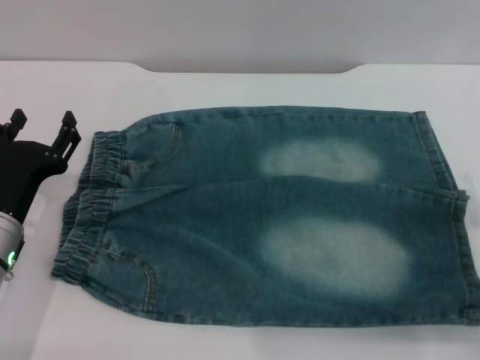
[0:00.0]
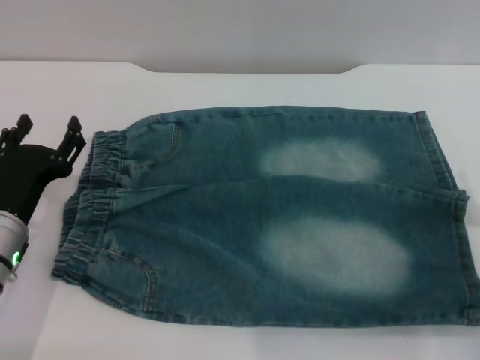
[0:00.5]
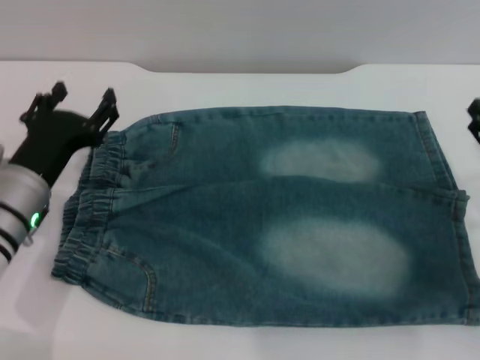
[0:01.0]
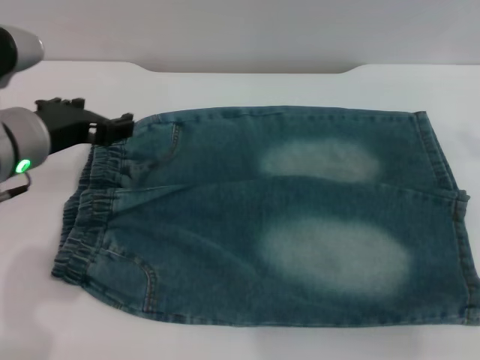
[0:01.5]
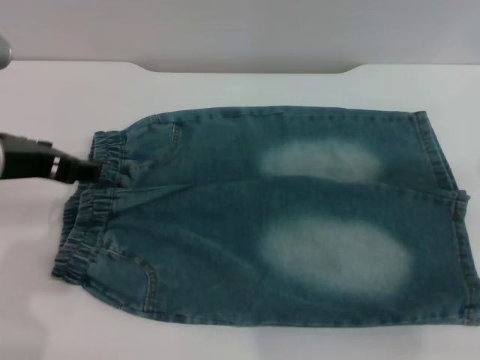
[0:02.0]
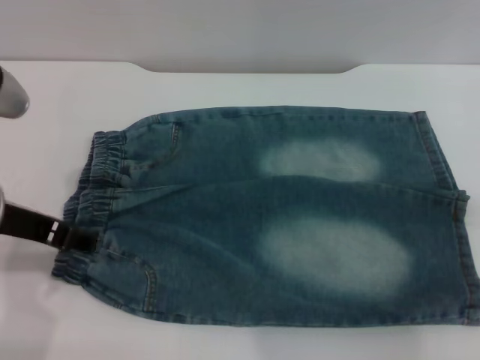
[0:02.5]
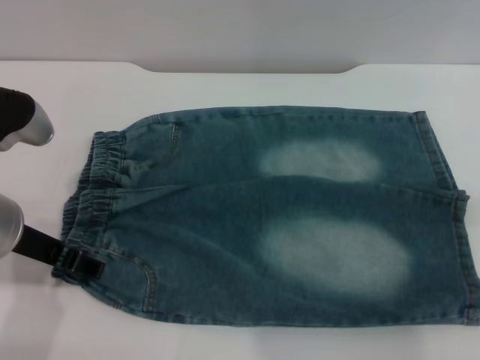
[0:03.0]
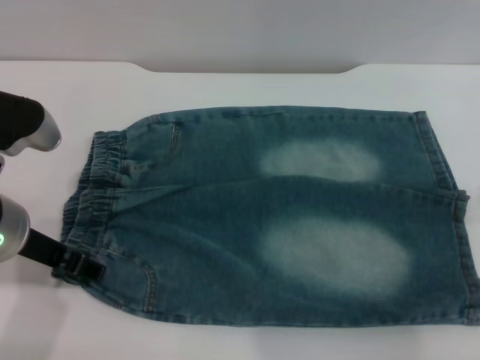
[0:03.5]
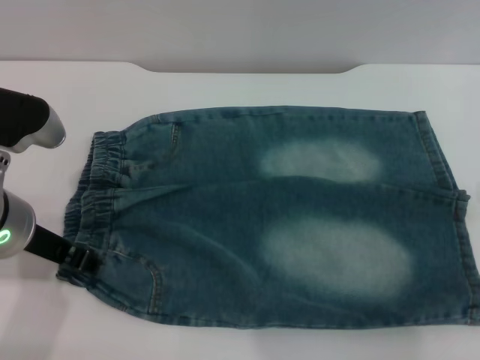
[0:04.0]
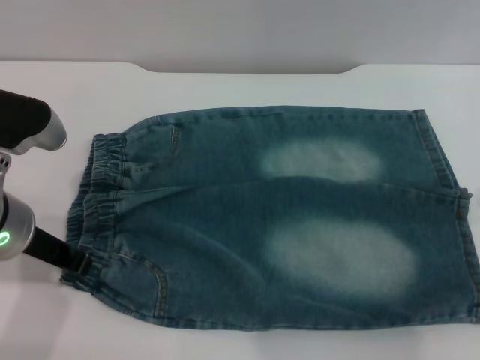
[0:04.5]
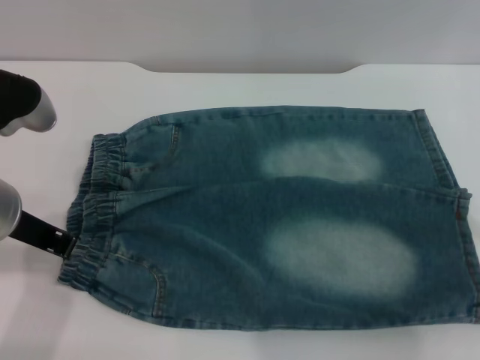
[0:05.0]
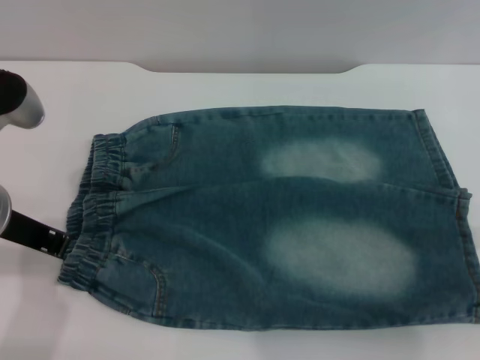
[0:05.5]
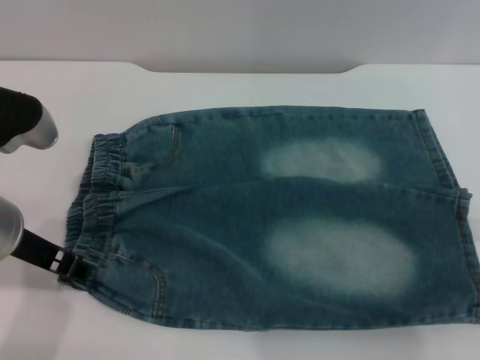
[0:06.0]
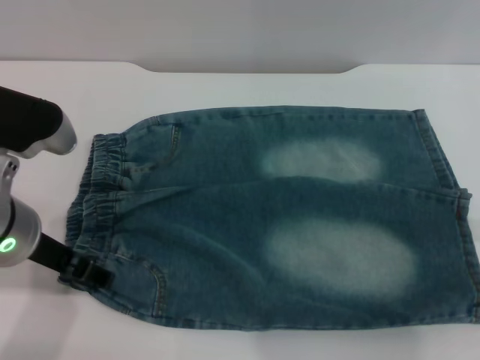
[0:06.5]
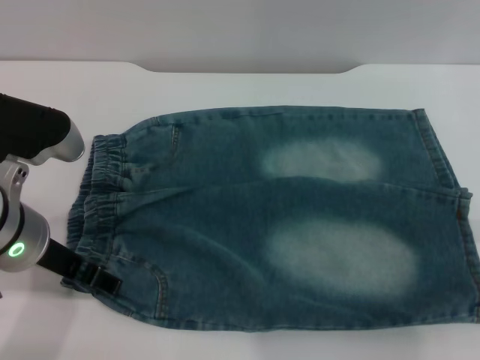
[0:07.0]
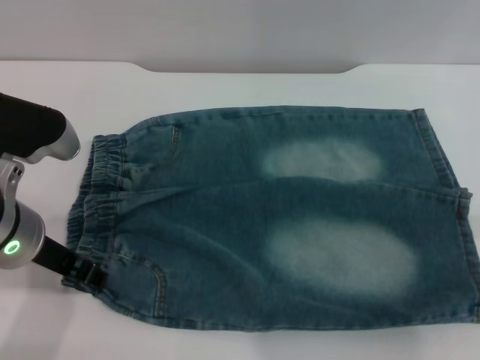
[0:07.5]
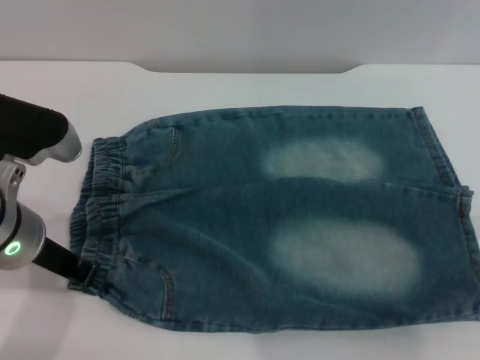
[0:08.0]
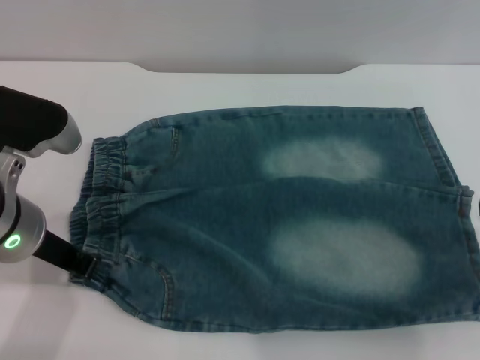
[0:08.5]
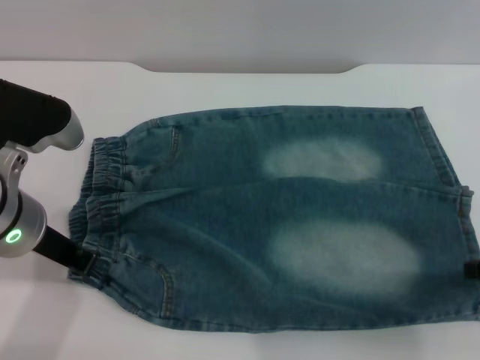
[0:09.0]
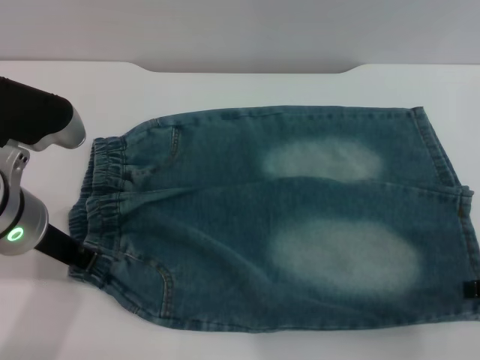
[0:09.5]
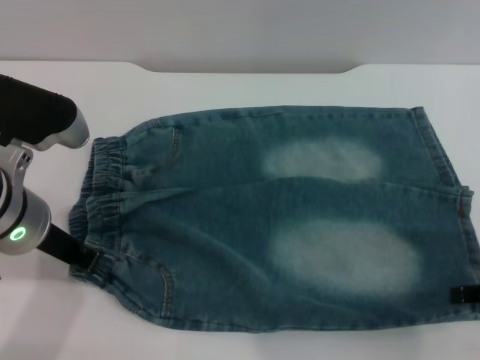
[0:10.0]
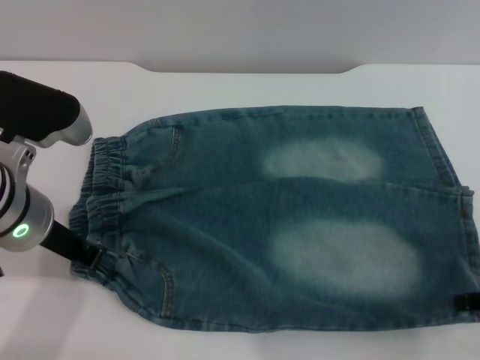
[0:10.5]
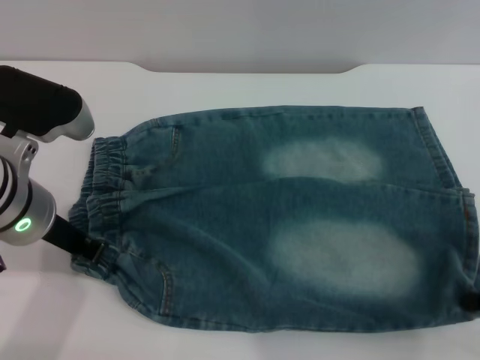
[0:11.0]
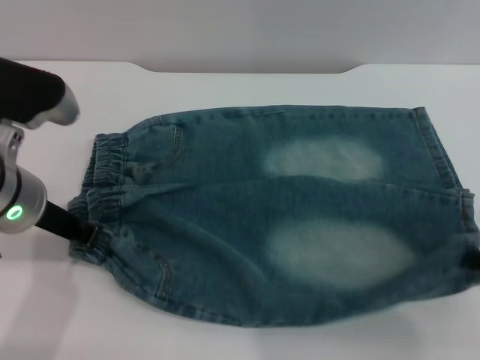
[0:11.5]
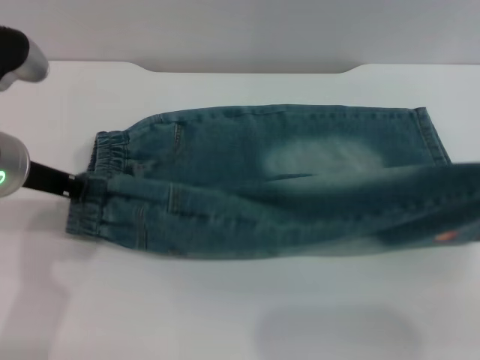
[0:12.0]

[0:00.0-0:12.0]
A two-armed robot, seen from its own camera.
0:00.0 to 0:02.0: The two grippers go some 20 cm upward.
0:02.0 to 0:04.0: The left gripper goes some 5 cm downward.
0:04.0 to 0:06.0: The left gripper closes its fingers.
0:06.0 to 0:08.0: The left gripper opens, then closes again.
0:10.0 to 0:12.0: The right gripper is displaced upward by some 5 cm, and closes.

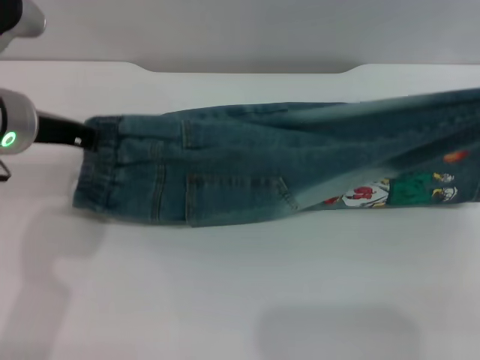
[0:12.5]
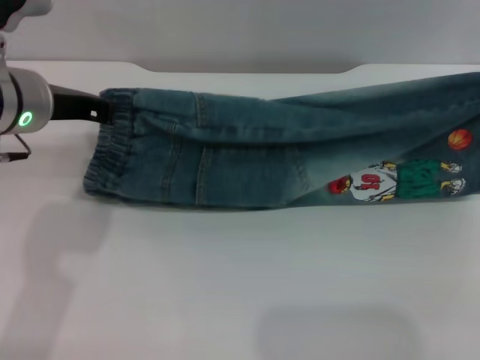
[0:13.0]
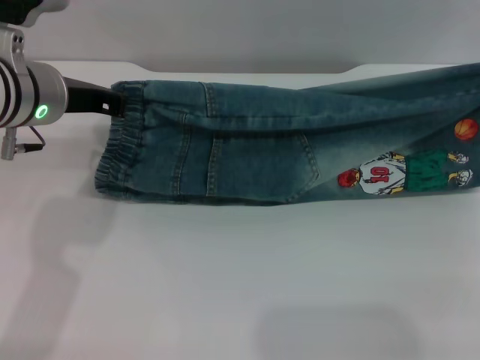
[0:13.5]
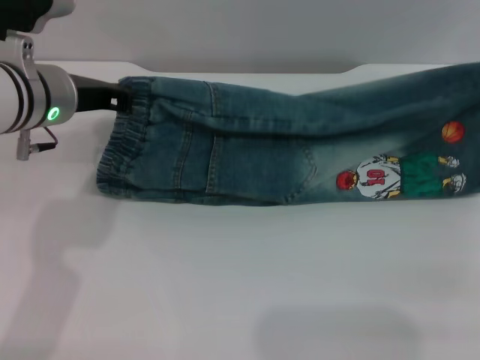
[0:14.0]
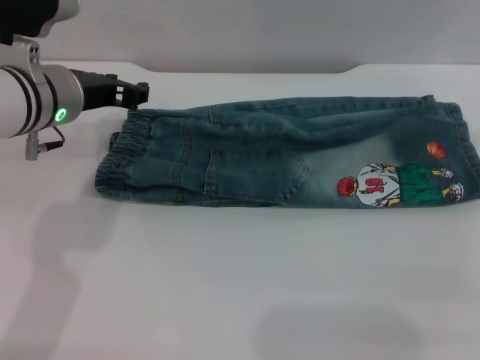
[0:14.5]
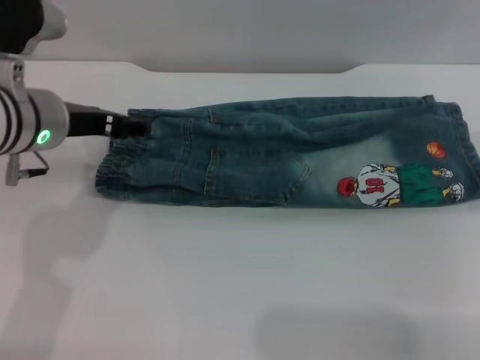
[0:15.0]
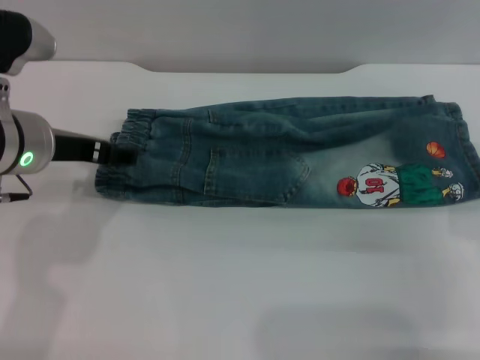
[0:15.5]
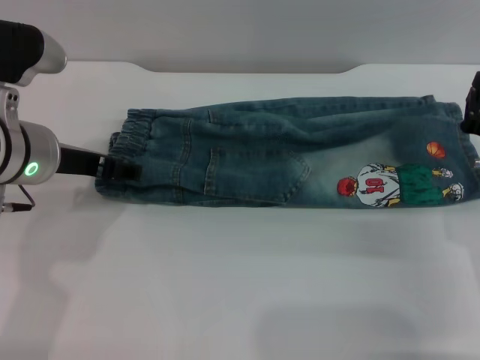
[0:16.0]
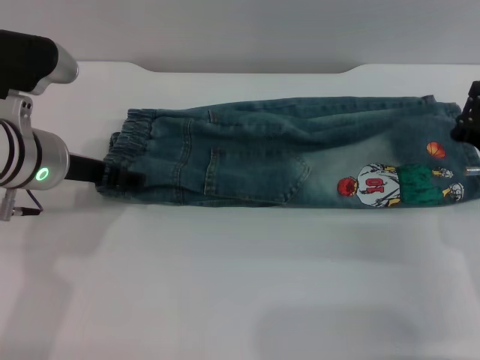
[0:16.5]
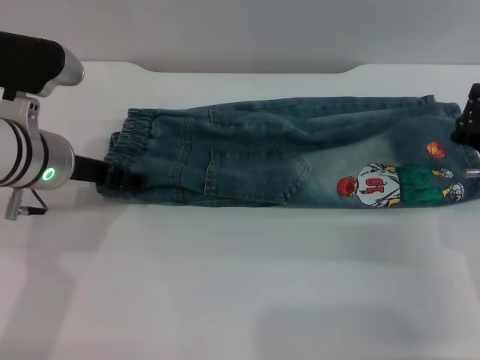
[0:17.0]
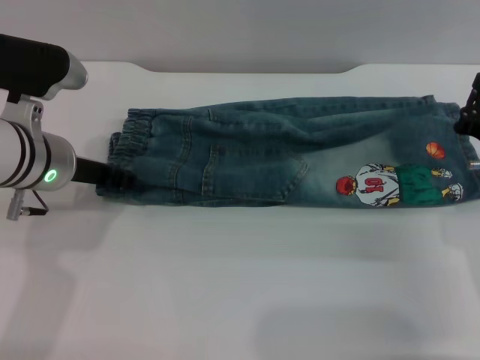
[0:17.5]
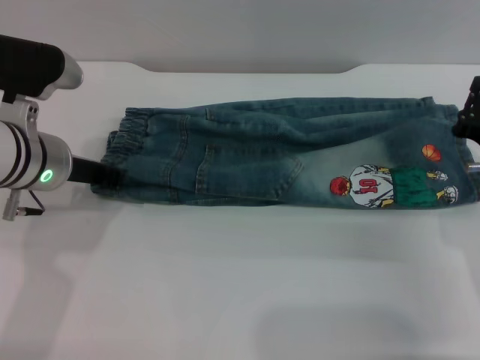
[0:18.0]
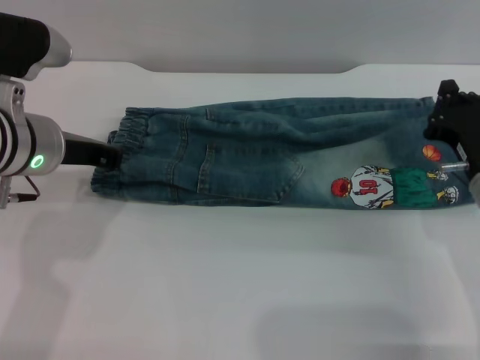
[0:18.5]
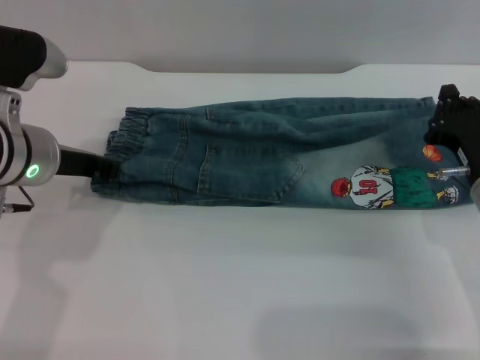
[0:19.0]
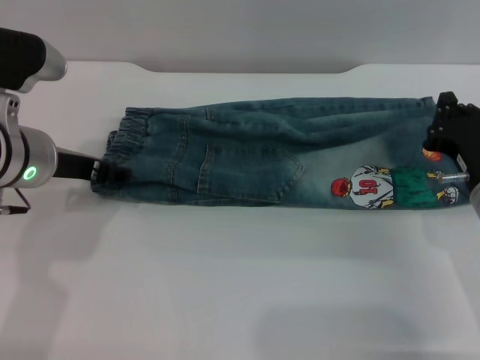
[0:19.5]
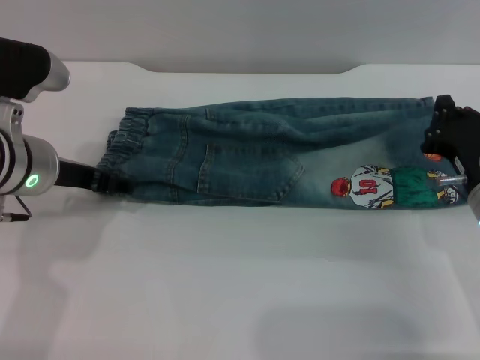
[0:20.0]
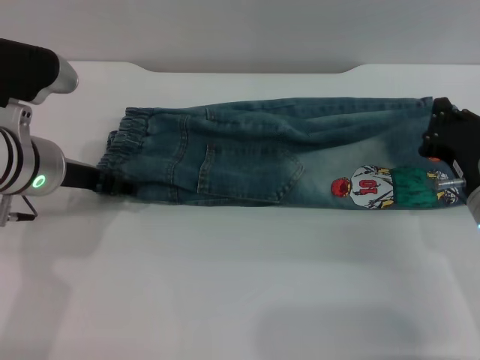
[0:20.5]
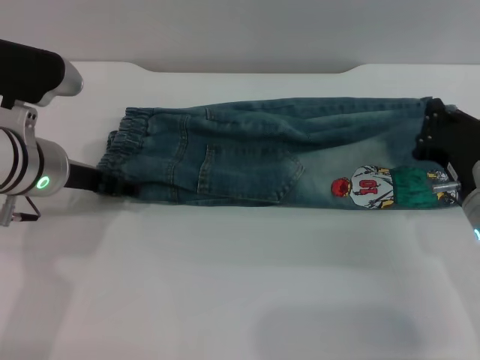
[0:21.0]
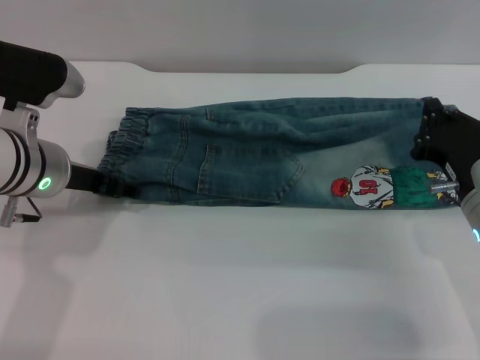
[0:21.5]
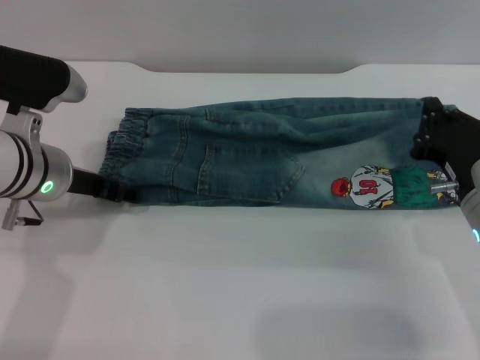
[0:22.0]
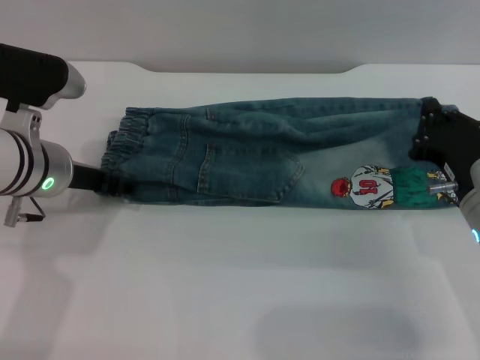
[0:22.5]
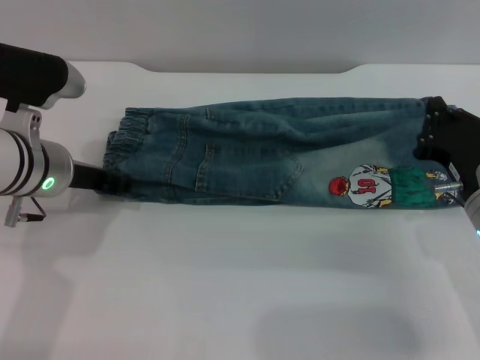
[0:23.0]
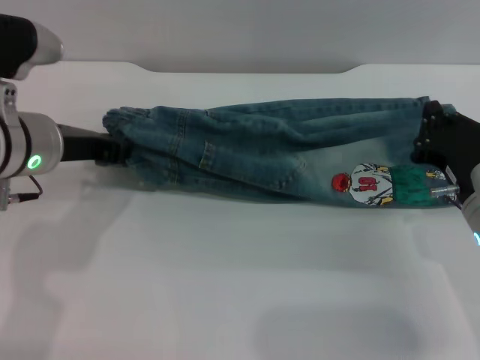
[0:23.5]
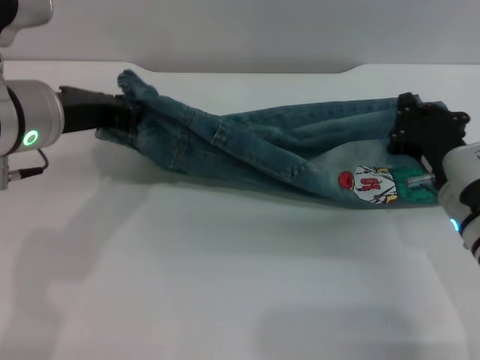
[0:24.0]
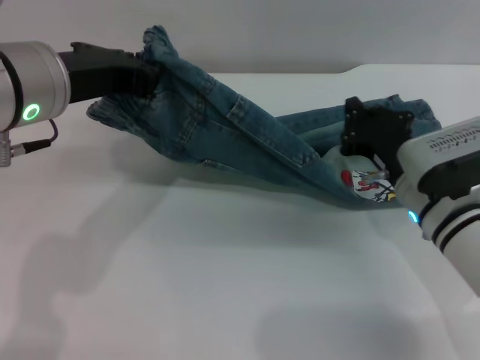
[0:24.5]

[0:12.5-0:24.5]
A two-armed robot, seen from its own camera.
Step, 0:12.5 to 0:17.5: Fold the bottom of the pants upward with both grippers.
0:12.5 to 0:14.5: The right gripper travels forward and downward by some 10 cm, and opens up, while the left gripper ends up roughly 5 cm from where it was.
0:14.5 to 0:16.5: The left gripper opens its fingers. The right gripper travels downward, to the left and backward by roughly 15 cm, and closes up.
0:16.5 to 0:18.5: The left gripper closes.
0:18.5 to 0:20.5: The left gripper opens.
0:20.5 to 0:22.5: There are only small adjustments of the grippers.
0:22.5 to 0:24.5: The left gripper shifts approximately 10 cm upward, and closes its fingers. Meanwhile the right gripper shifts by roughly 5 cm.

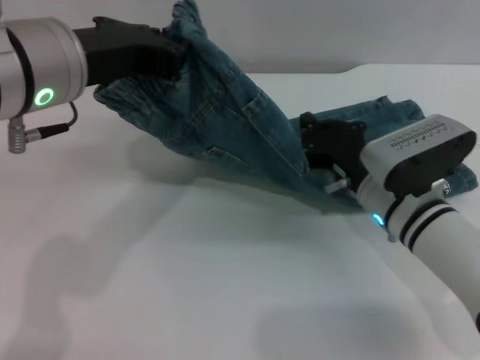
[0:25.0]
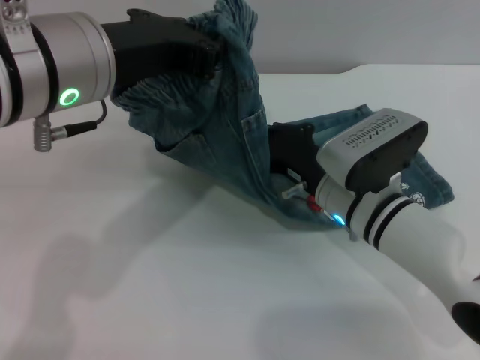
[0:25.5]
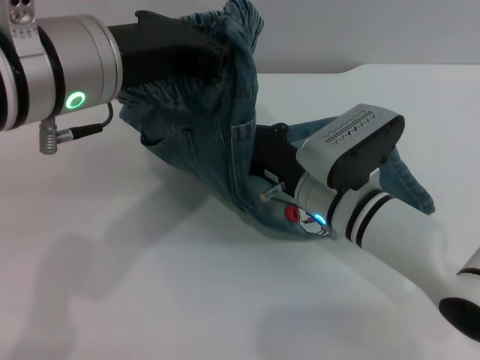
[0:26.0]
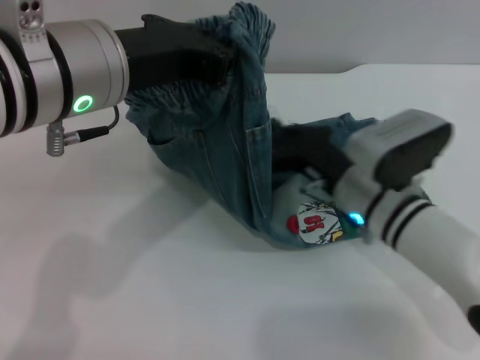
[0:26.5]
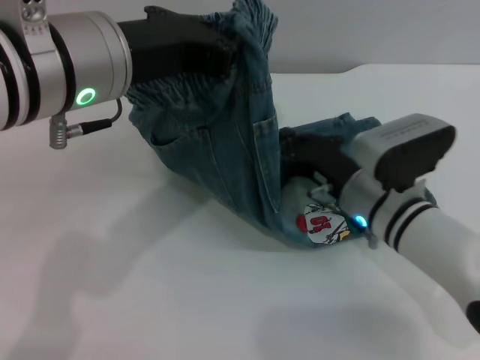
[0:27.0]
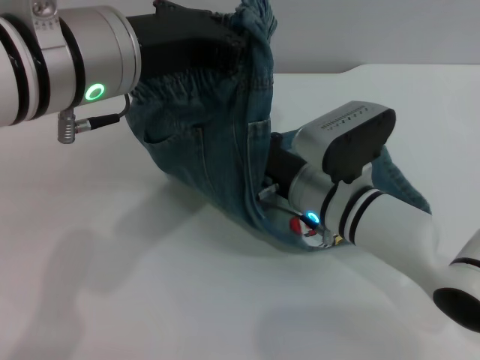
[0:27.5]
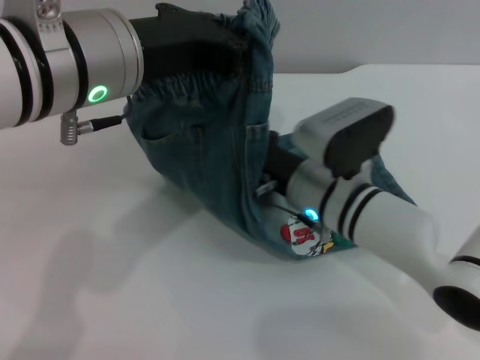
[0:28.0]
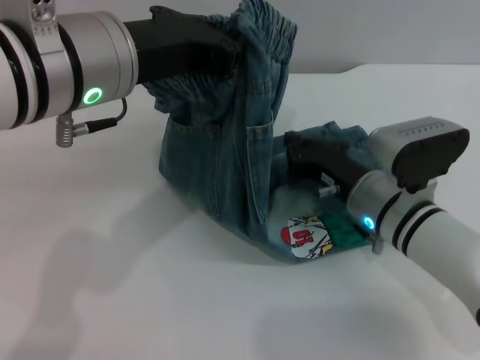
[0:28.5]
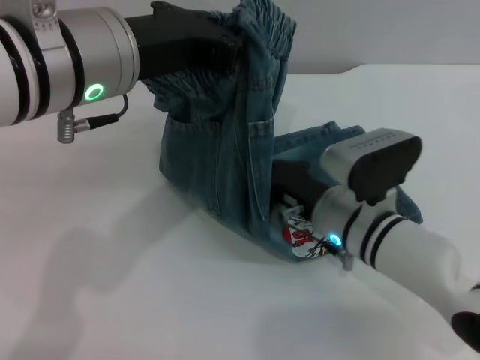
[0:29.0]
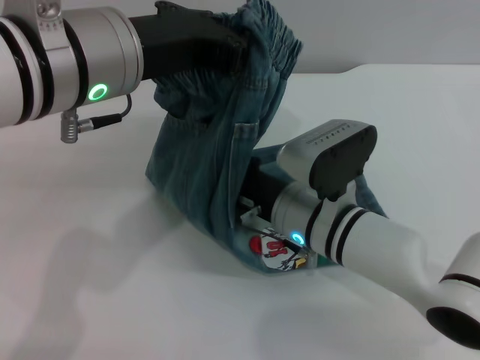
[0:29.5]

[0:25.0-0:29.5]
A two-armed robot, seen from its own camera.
0:27.0 to 0:29.5: The right gripper moves left and right over approximately 5 cm, changing direction 2 times.
